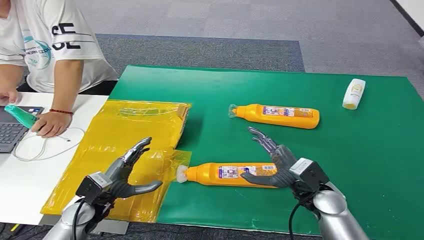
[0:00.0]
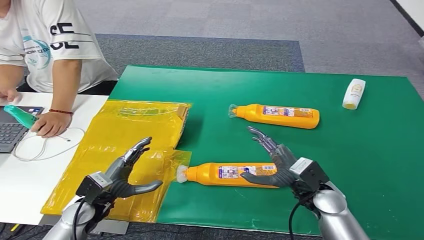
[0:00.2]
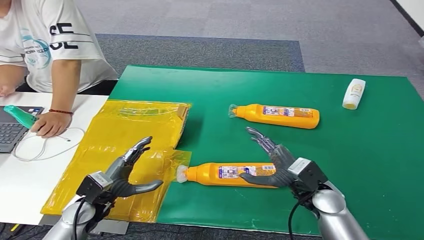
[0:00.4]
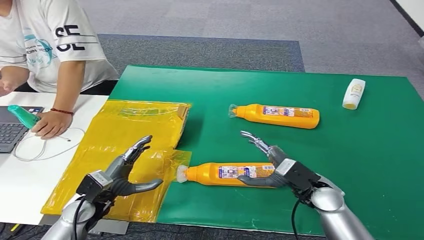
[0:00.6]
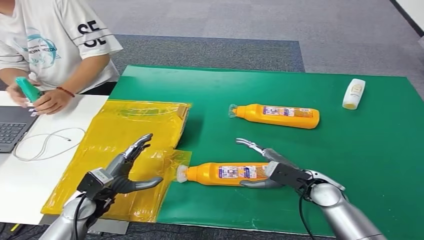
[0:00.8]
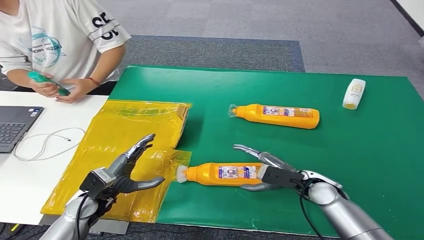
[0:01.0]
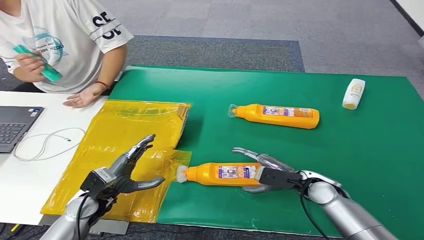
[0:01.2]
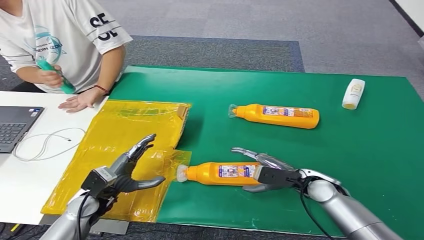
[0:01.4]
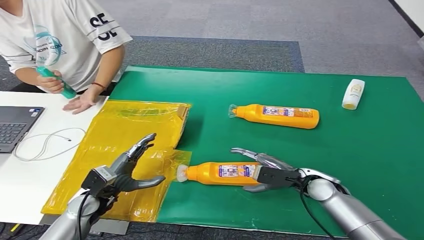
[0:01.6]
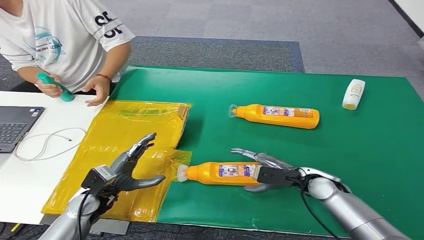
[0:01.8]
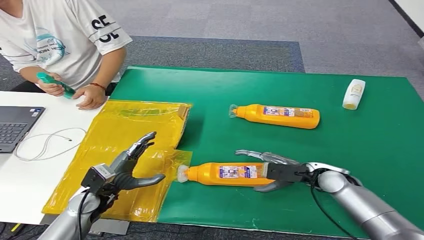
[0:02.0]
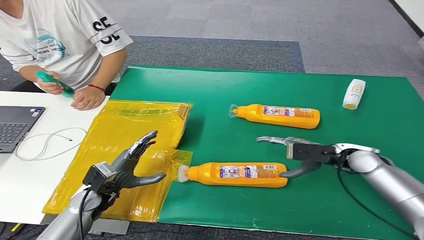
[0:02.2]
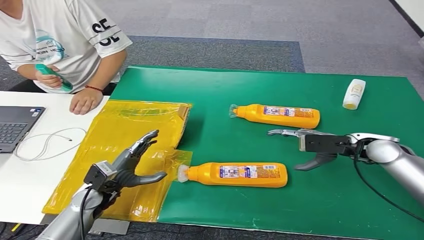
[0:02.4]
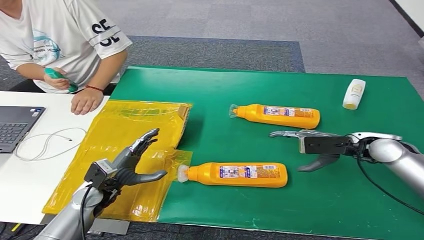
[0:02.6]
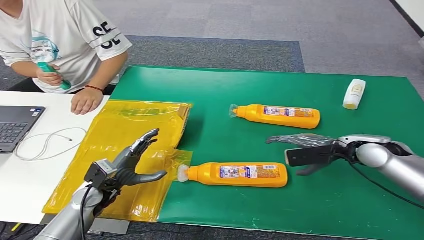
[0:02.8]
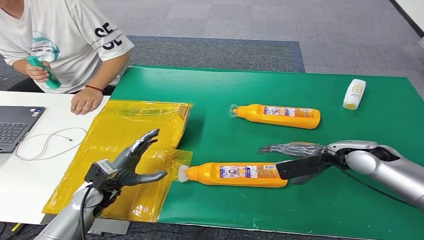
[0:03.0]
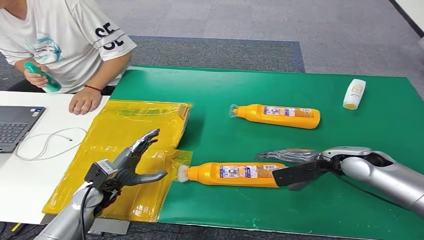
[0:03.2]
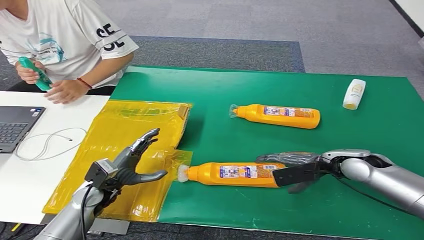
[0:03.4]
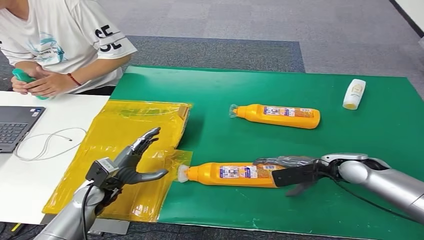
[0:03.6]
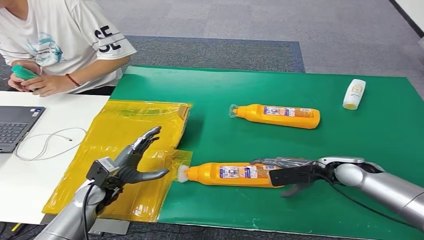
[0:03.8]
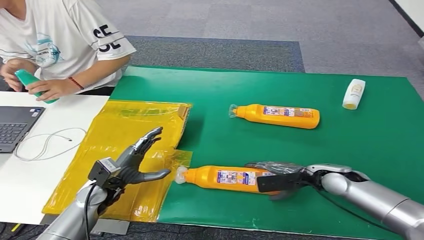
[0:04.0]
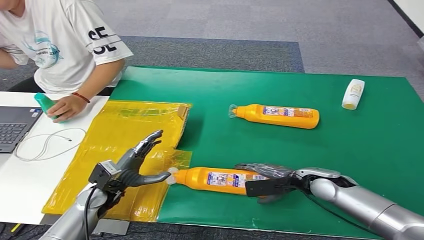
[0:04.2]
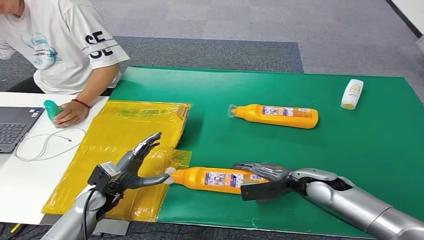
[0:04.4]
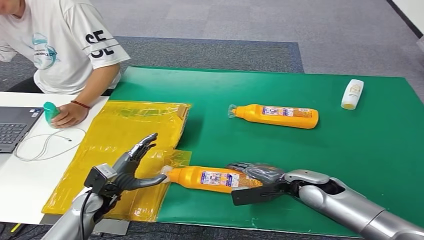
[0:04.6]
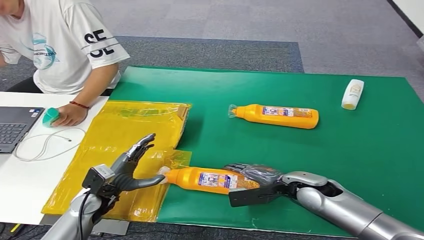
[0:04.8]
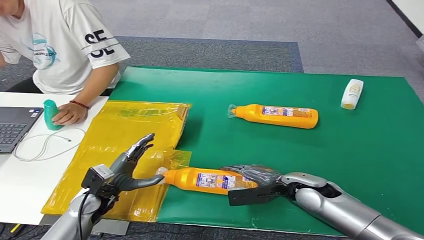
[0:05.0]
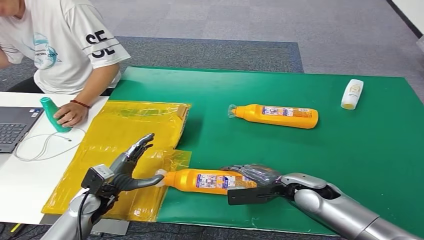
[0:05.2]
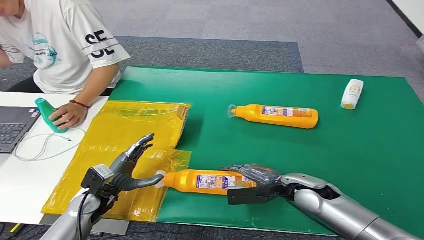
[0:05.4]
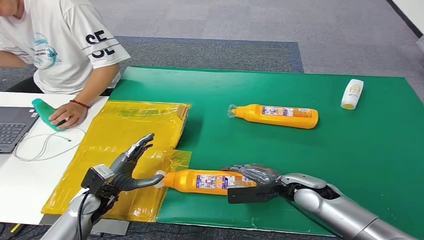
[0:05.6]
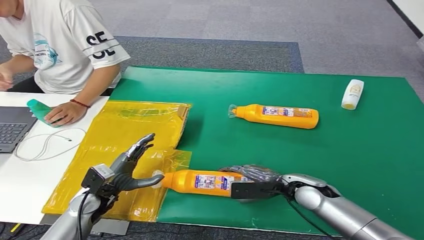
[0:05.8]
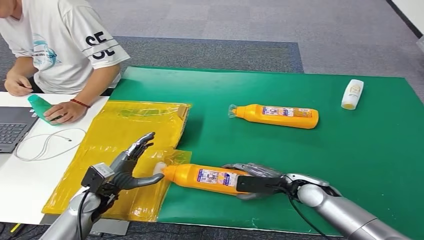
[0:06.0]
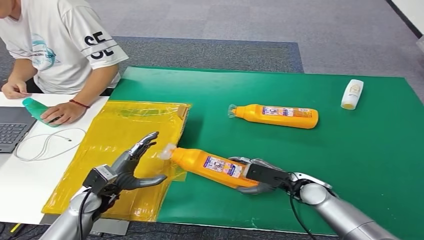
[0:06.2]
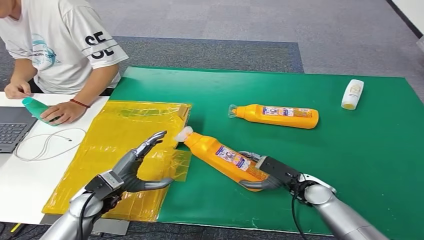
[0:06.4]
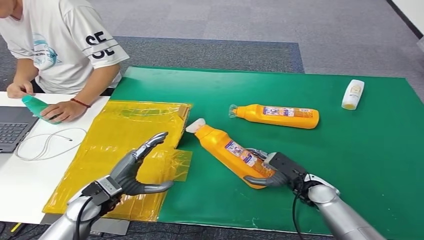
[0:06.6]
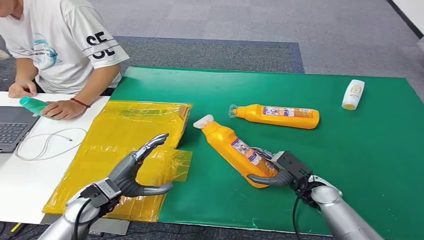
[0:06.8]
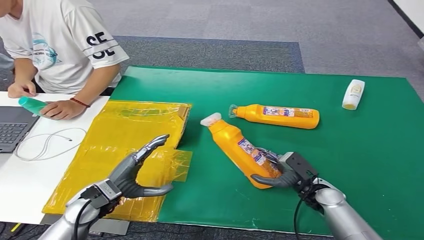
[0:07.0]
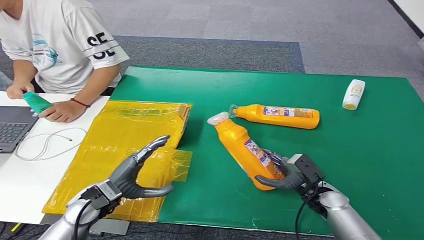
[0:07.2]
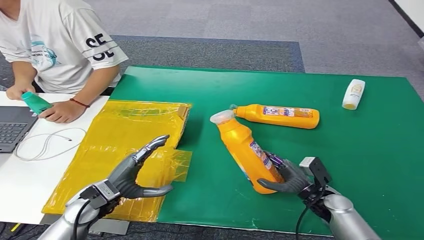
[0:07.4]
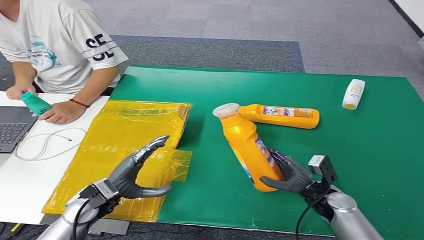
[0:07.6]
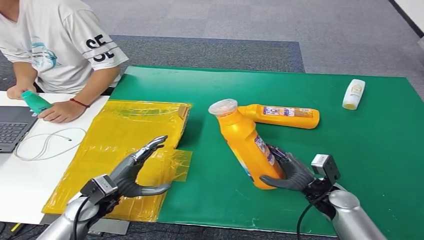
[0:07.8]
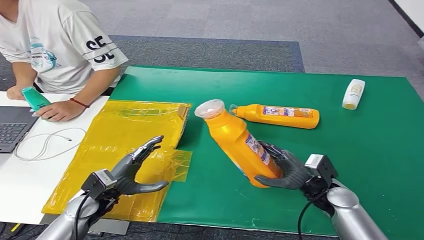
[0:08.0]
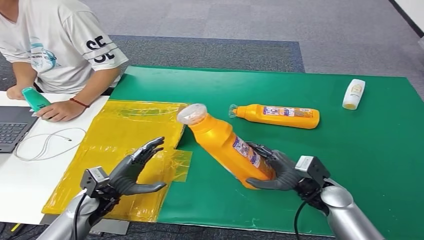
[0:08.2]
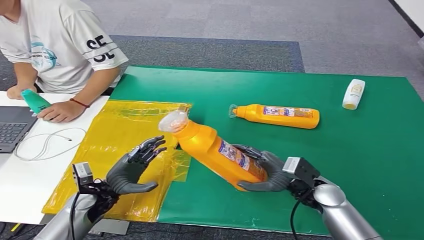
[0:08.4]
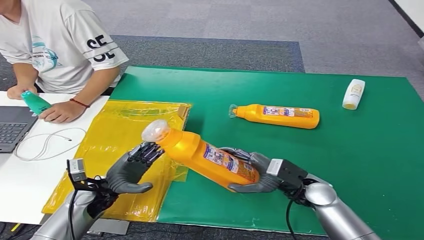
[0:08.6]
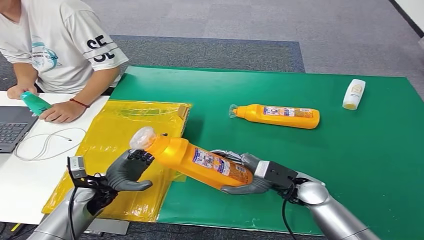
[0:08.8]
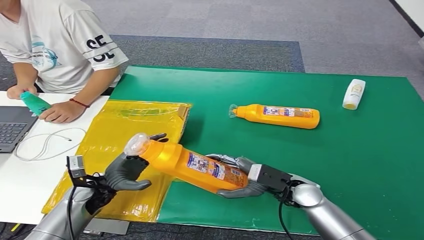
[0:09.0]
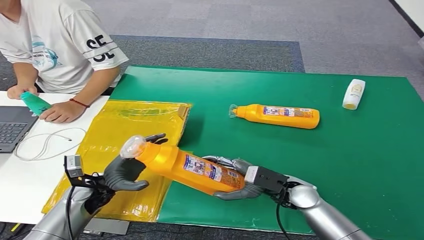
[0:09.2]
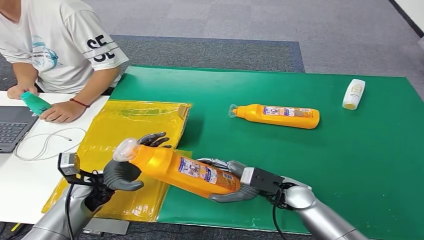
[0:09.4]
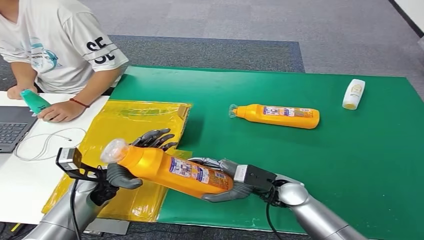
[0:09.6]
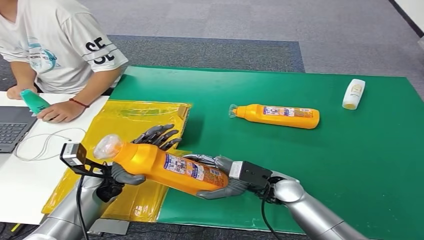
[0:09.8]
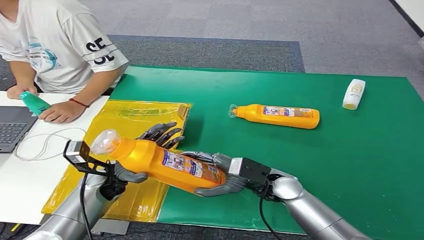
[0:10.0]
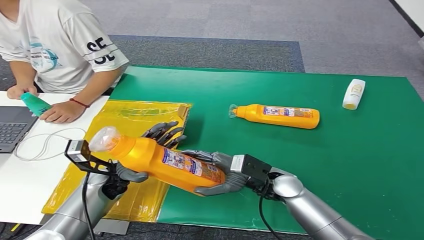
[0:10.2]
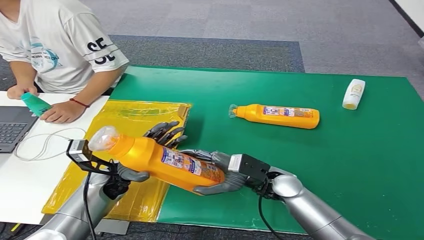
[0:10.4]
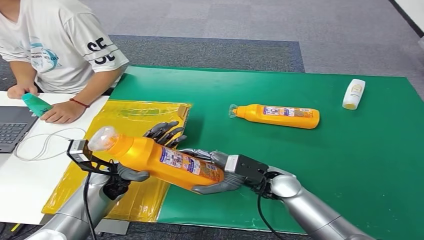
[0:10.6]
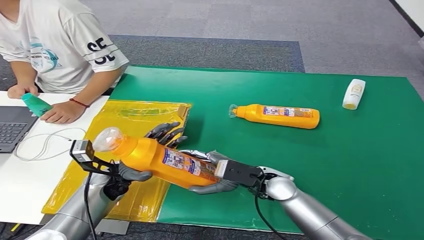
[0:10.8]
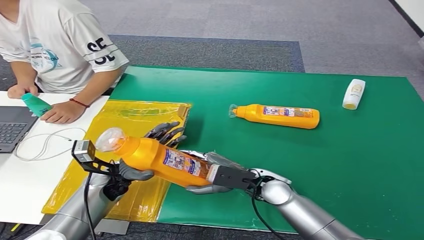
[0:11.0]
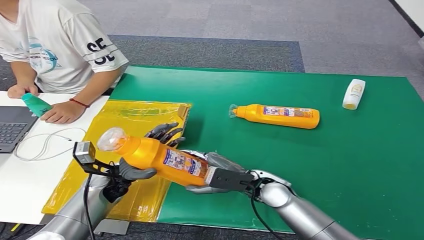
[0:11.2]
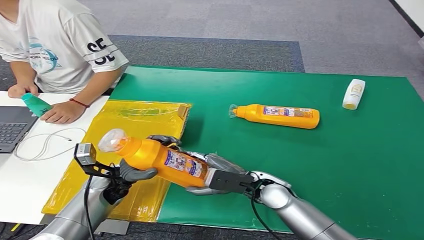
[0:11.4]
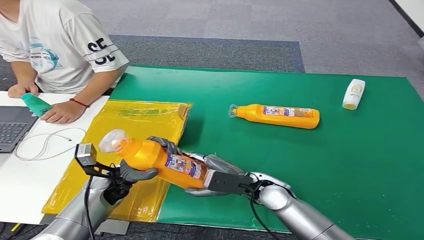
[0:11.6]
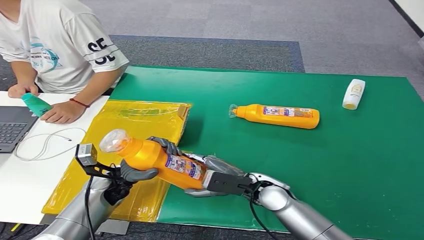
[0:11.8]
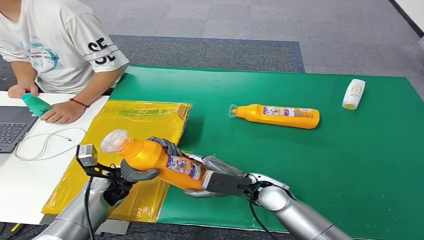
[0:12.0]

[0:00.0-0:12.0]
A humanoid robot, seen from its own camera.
Step, 0:00.0 to 0:06.8: Pick up the bottle from the table.
0:01.6 to 0:03.0: The right hand shifts roughly 15 cm upward, to the right and forward.
0:06.0 to 0:07.6: The left hand moves some 5 cm. The right hand travels to the right by approximately 5 cm.
0:07.6 to 0:09.0: The right hand heads to the left and upward, covering approximately 10 cm; the left hand shifts by roughly 5 cm.
0:09.0 to 0:10.4: The right hand goes some 5 cm to the left. The left hand ends up roughly 5 cm from where it was.
0:10.4 to 0:12.0: There are only small adjustments of the hands.

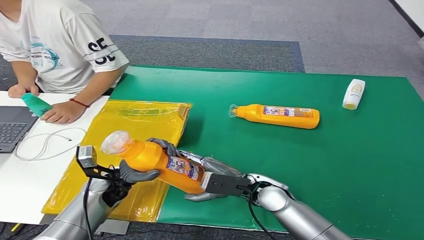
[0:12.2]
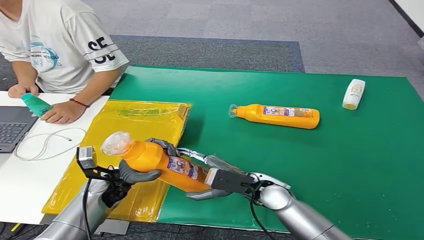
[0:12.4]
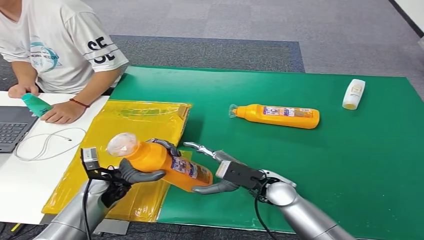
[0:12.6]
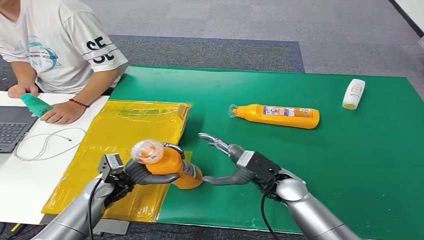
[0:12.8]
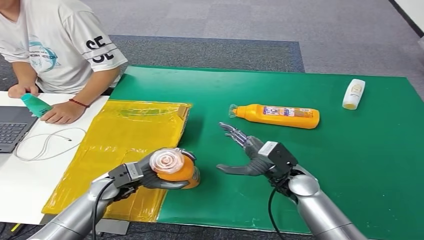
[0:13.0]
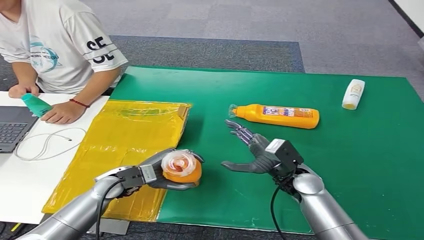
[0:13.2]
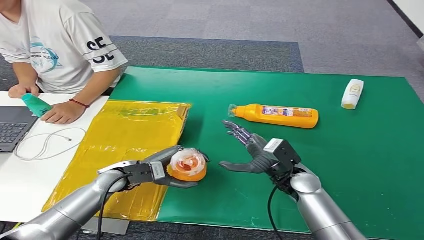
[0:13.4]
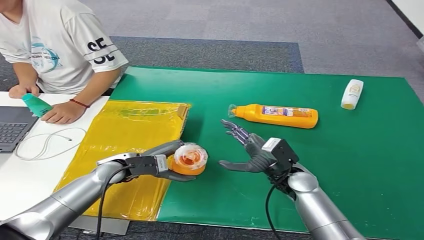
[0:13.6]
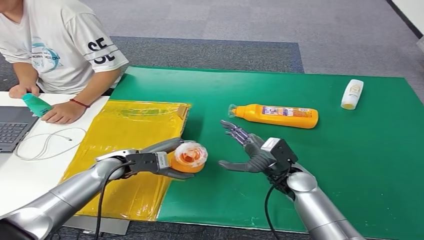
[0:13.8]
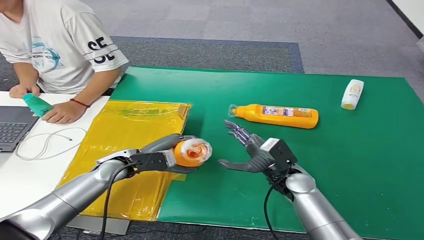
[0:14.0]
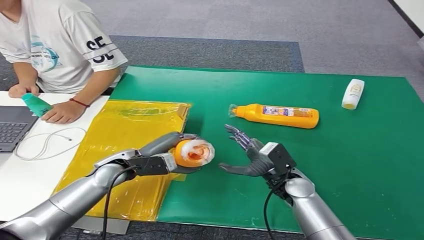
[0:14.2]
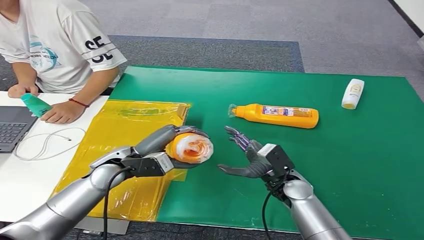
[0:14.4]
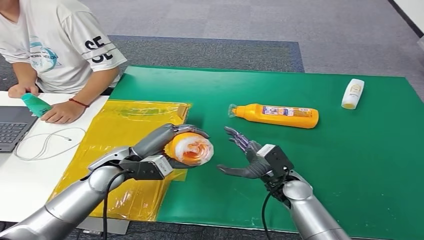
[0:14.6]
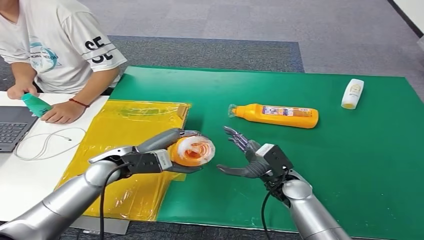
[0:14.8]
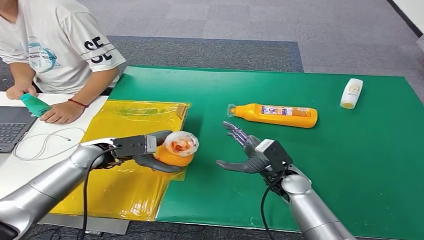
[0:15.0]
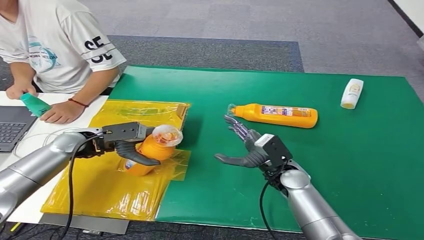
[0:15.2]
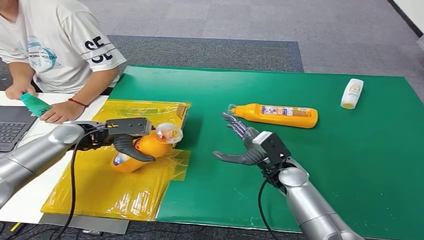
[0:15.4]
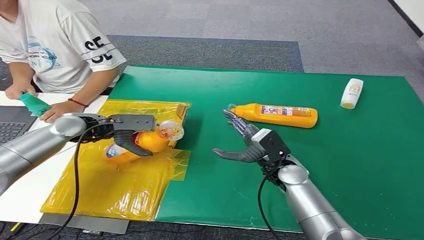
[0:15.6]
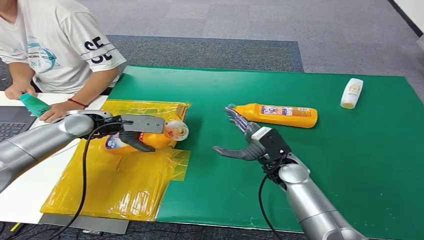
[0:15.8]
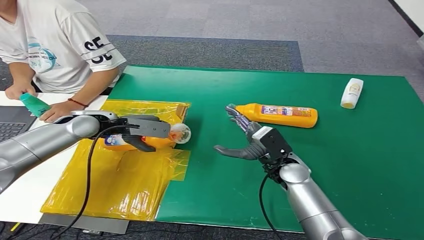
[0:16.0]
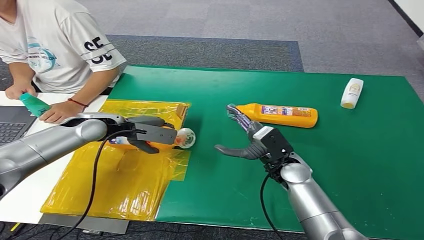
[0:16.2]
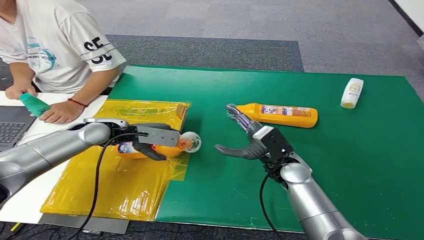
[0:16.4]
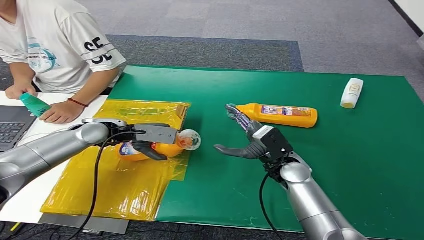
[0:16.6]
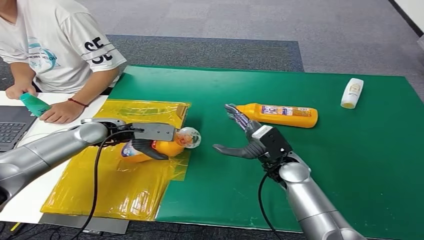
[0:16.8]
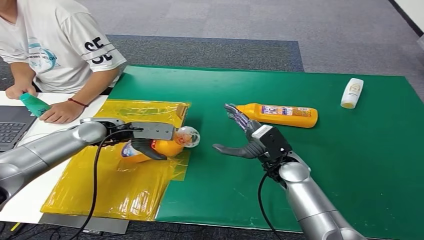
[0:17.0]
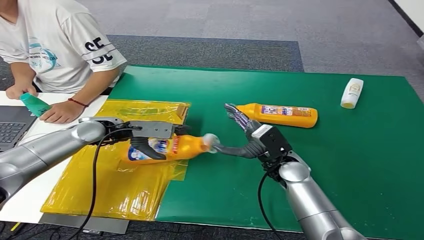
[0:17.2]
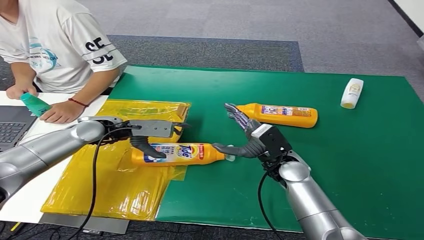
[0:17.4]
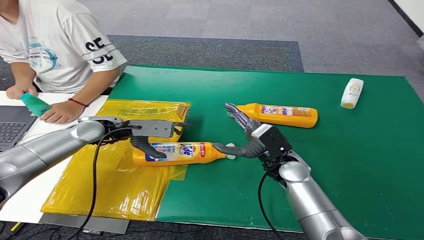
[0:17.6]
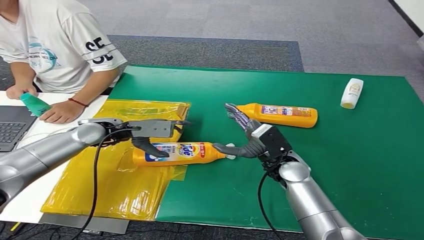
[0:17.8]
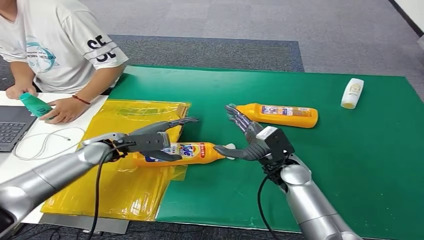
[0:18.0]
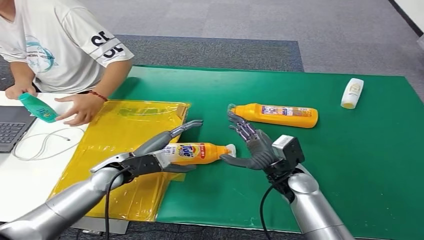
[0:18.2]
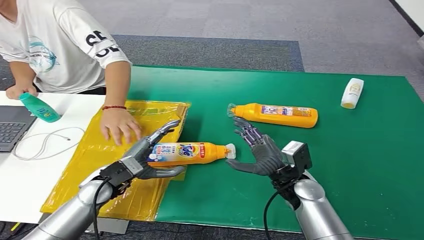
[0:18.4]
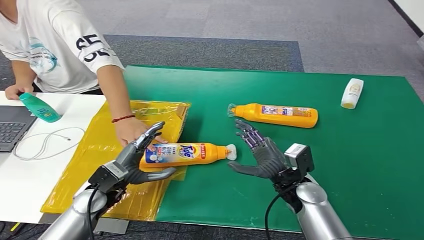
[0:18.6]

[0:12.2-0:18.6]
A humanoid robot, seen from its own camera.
Step, 0:12.2 to 0:18.6: Turn the bottle to the front side.
0:12.2 to 0:13.8: The right hand moves to the right, roughly 5 cm, while the left hand changes place by roughly 5 cm.
